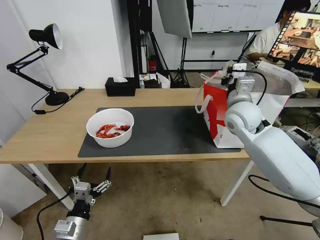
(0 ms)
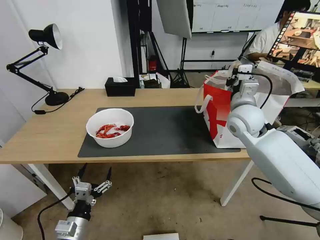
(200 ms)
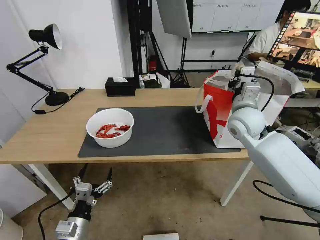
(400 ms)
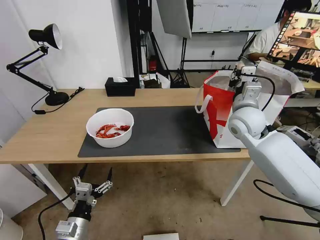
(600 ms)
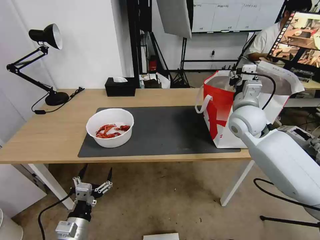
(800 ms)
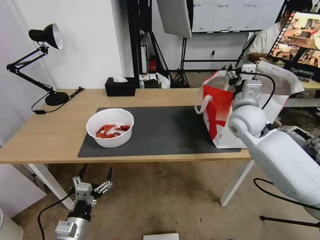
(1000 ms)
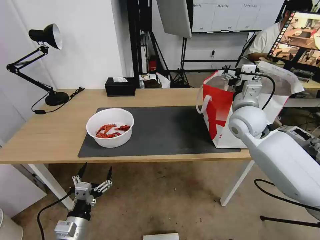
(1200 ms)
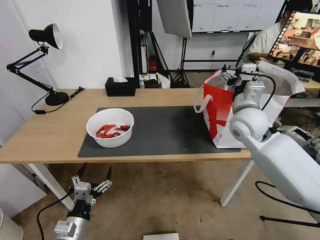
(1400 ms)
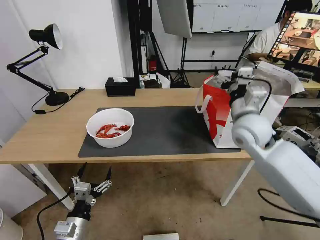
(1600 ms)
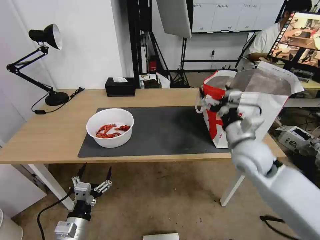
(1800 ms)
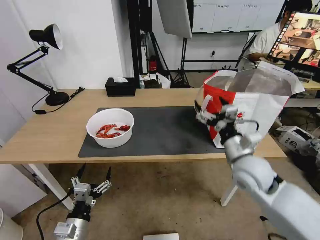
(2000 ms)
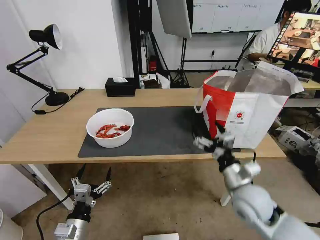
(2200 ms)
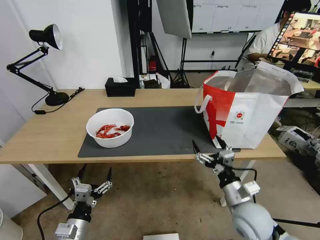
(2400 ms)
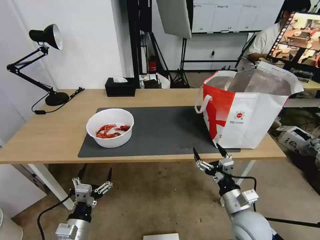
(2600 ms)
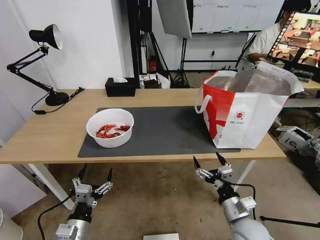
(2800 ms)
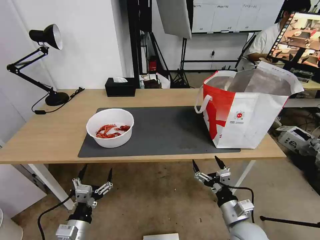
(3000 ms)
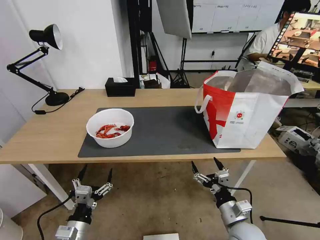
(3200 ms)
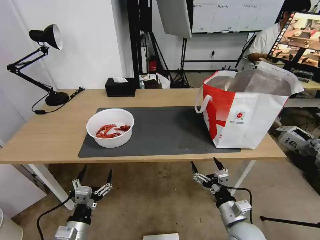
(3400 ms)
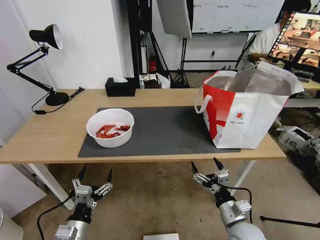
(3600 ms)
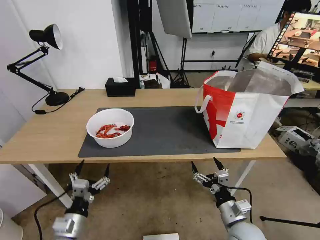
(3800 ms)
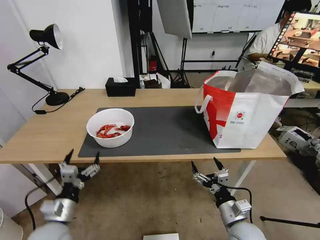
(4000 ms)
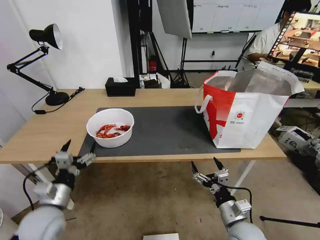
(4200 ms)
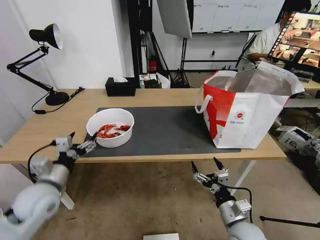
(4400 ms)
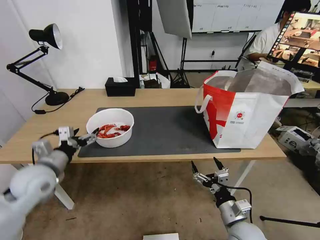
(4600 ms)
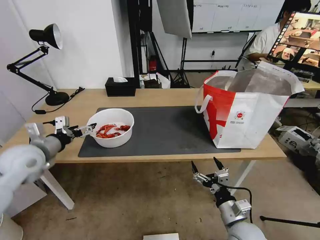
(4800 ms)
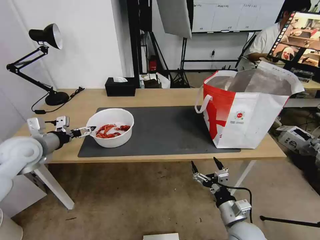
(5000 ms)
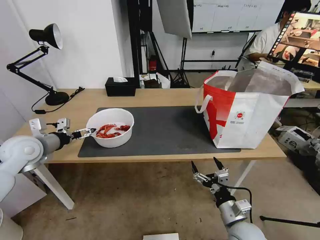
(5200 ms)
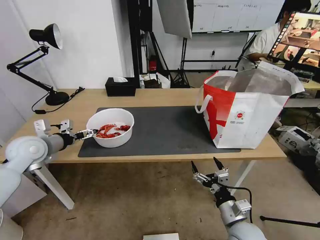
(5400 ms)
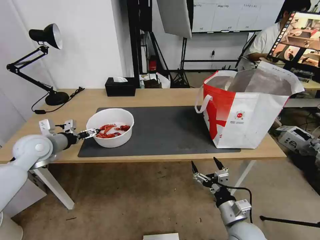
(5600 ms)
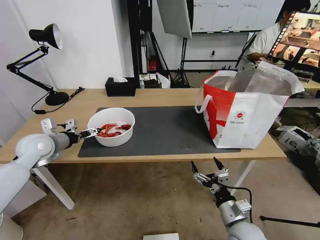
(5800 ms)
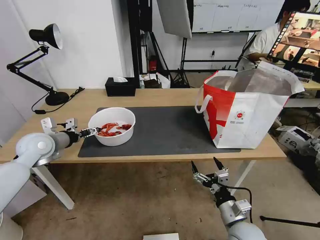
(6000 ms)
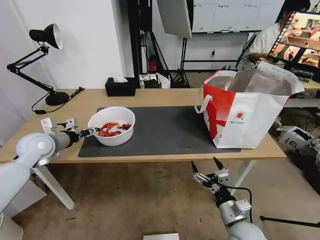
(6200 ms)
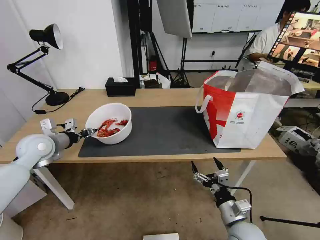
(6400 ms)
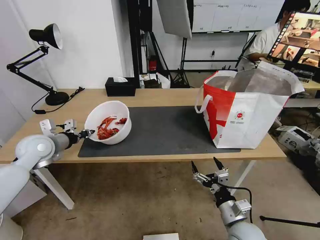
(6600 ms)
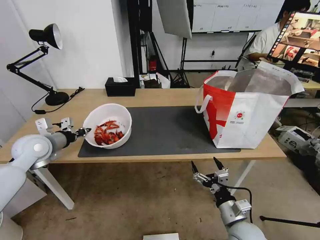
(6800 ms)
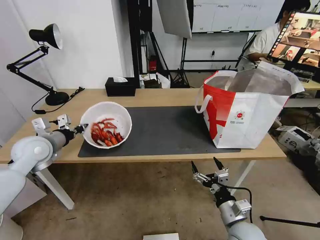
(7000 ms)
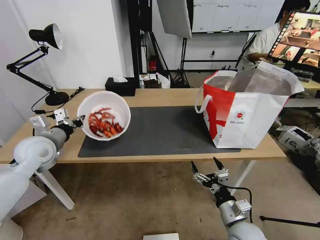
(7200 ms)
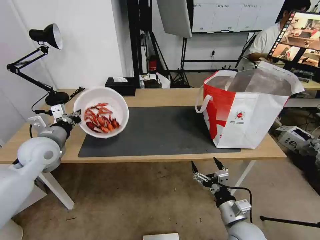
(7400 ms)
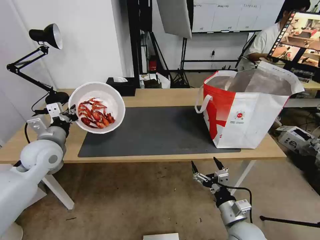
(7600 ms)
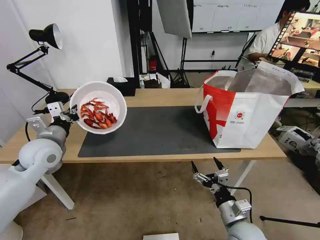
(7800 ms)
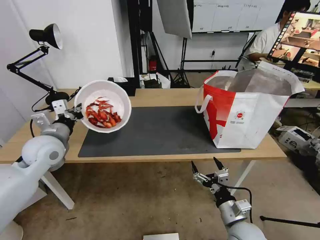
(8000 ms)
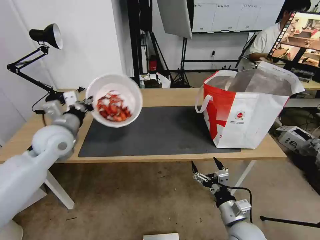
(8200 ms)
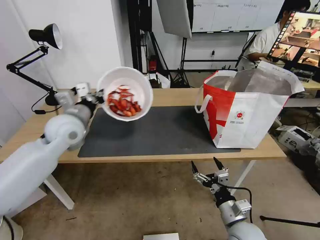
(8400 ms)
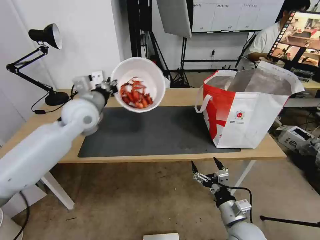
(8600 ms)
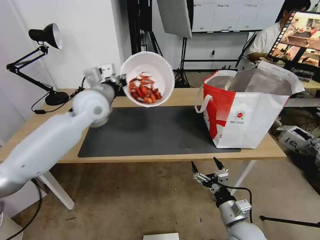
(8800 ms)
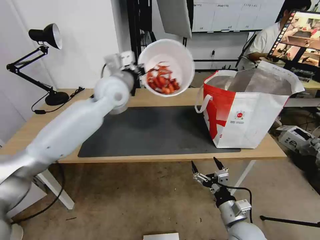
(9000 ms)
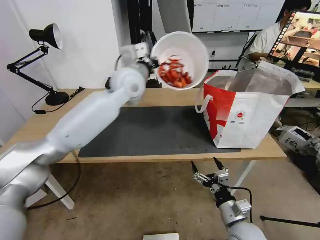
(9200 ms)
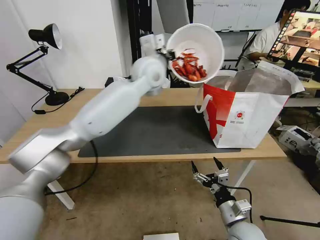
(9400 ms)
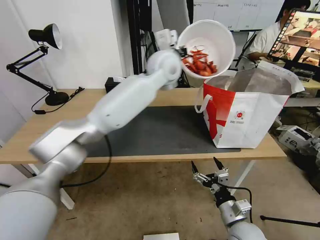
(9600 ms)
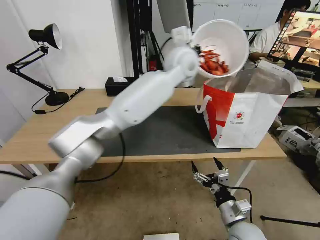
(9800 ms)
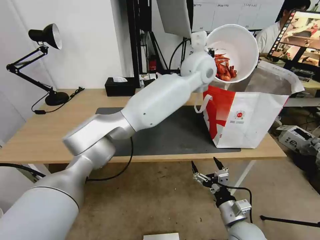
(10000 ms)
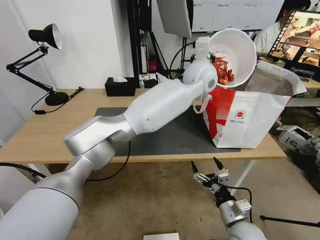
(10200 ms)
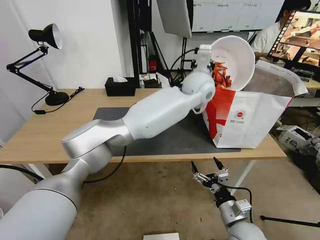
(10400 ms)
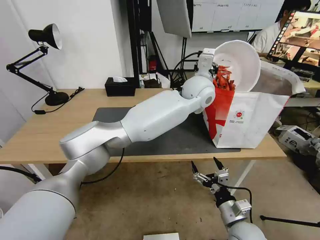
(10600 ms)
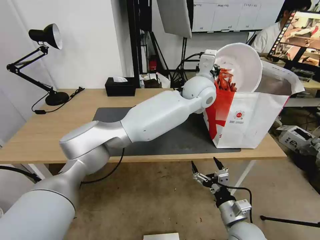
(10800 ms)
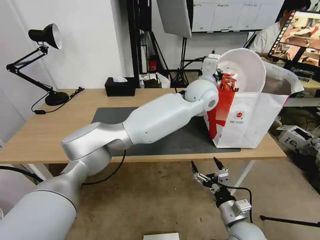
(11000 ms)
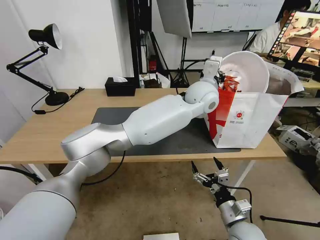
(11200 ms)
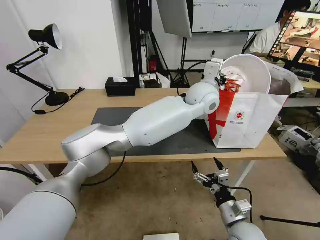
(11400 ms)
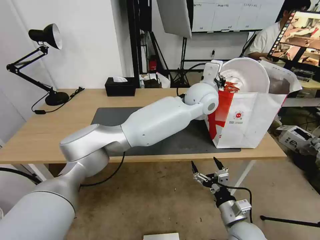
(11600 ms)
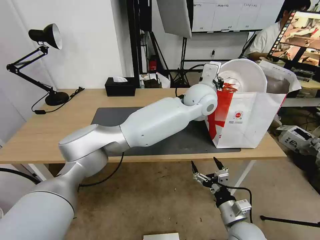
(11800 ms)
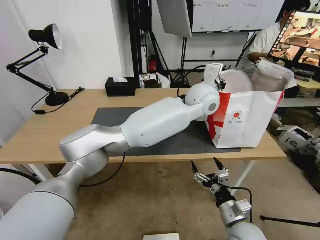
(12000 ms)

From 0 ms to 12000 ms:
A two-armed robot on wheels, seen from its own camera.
Task of the whole recording: Pick up the trash from the table and place it into the takeout bag.
From 0 ms to 1600 ms: The right gripper shifts some 5 cm backward, and opens up.
From 1600 ms to 3000 ms: The right gripper heads downward and backward, covering about 30 cm.
From 3000 ms to 4400 ms: The left gripper travels forward, upward and to the left by some 20 cm.
From 4400 ms to 6000 ms: The left gripper goes roughly 15 cm forward and to the left.
From 6000 ms to 7600 ms: The left gripper changes place by roughly 5 cm, and closes its fingers.
From 7600 ms to 9000 ms: The left gripper goes approximately 25 cm to the right, upward and forward.
From 9000 ms to 10400 ms: The left gripper moves to the right, approximately 25 cm.
From 10400 ms to 12000 ms: The grippers move only a little.

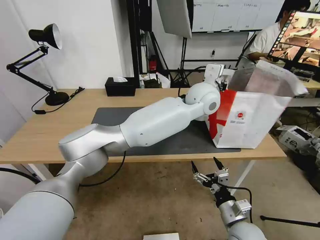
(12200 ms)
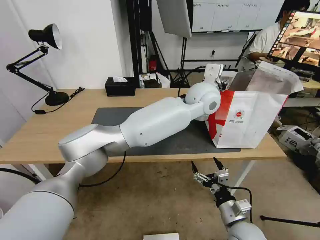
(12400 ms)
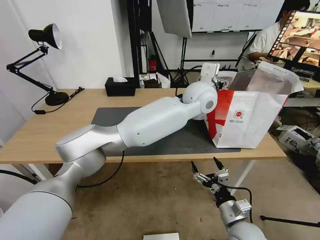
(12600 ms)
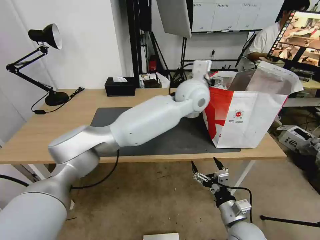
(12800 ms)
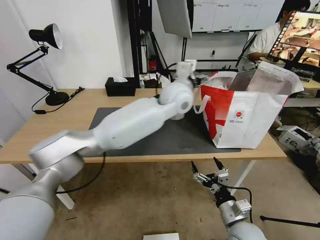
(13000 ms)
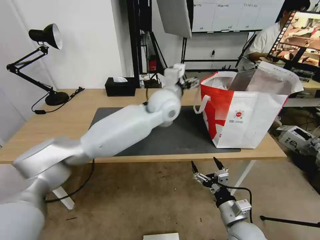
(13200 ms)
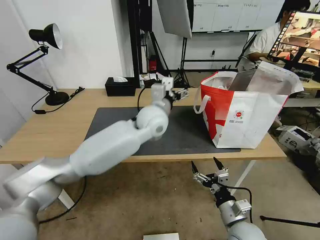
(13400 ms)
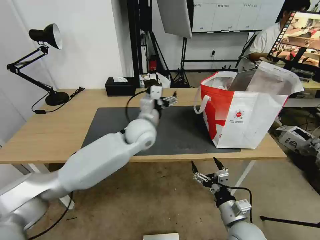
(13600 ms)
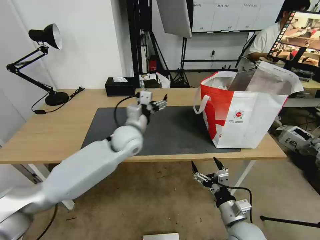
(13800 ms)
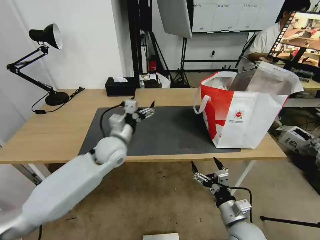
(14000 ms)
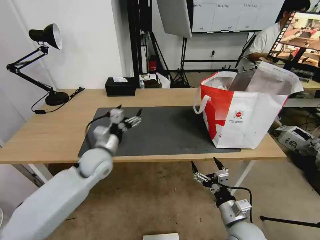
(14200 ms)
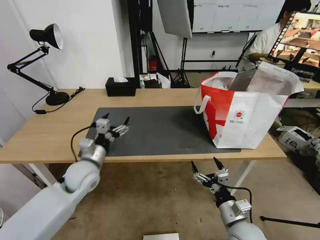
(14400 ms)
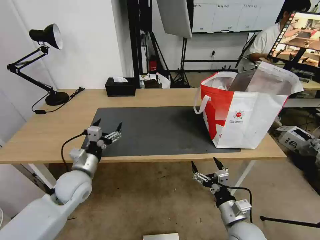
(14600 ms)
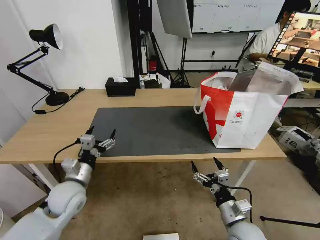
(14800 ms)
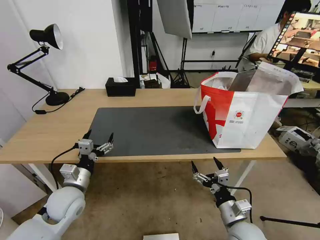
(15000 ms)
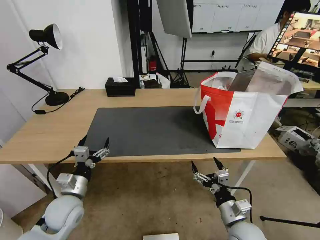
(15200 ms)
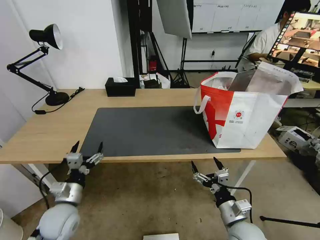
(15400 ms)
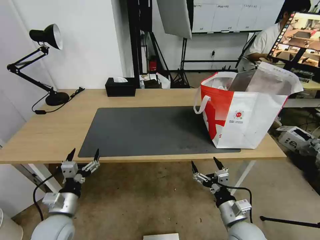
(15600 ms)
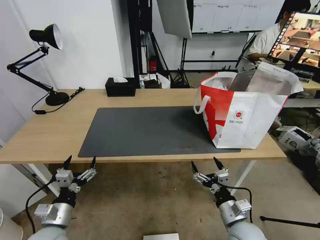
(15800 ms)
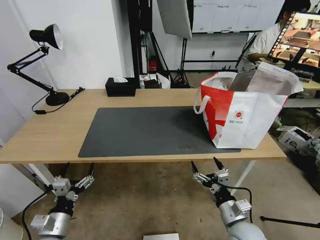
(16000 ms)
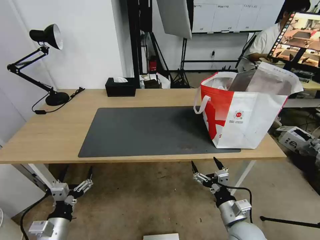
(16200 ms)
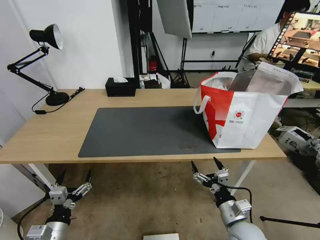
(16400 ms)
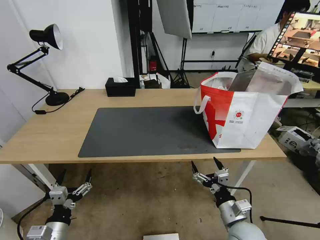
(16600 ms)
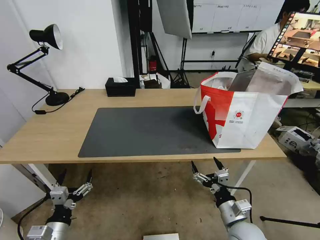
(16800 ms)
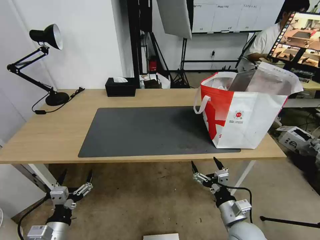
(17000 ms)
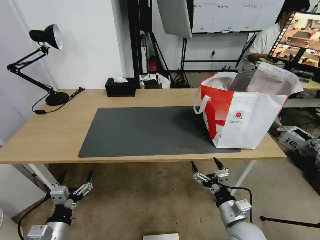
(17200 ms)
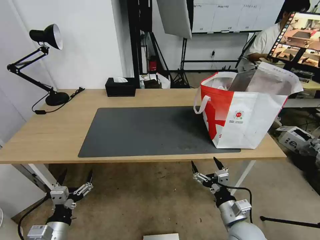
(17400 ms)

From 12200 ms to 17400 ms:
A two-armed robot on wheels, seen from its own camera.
Task of the whole recording: Pick up the trash from the table and place it into the takeout bag.
From 12200 ms to 14000 ms: The left gripper heads to the left and downward, covering approximately 30 cm, and opens up.
From 14000 ms to 15600 ms: The left gripper heads backward, to the left and downward, covering approximately 30 cm.
From 15600 ms to 17400 ms: The left gripper is displaced backward by some 5 cm.
